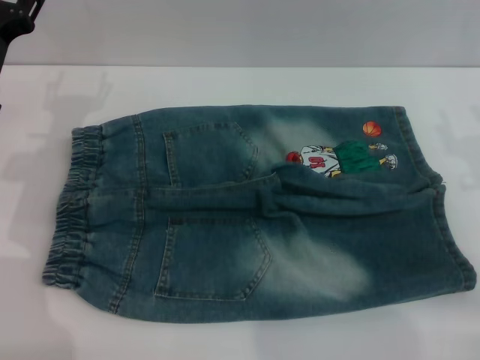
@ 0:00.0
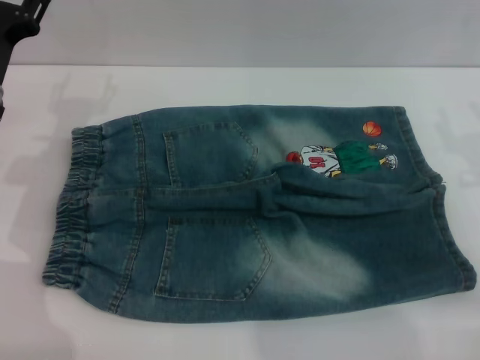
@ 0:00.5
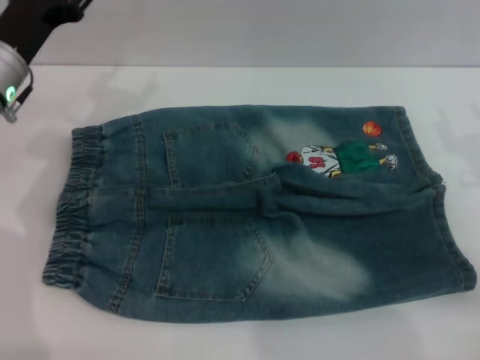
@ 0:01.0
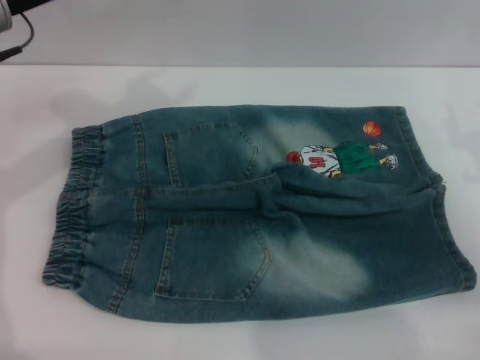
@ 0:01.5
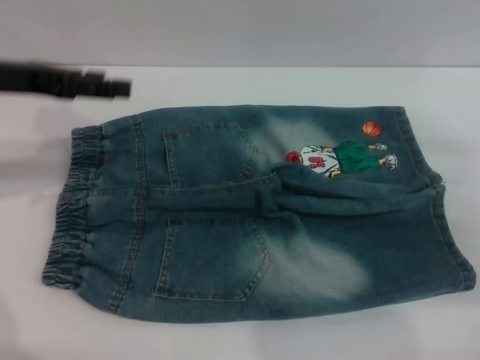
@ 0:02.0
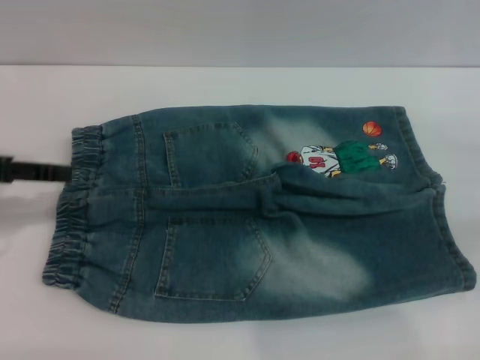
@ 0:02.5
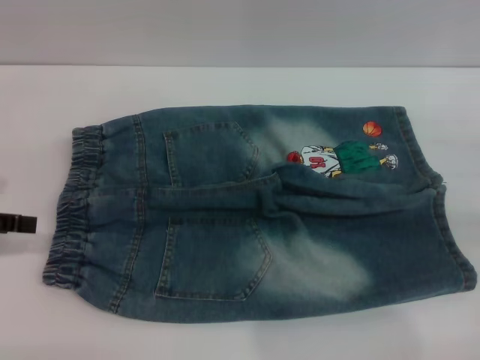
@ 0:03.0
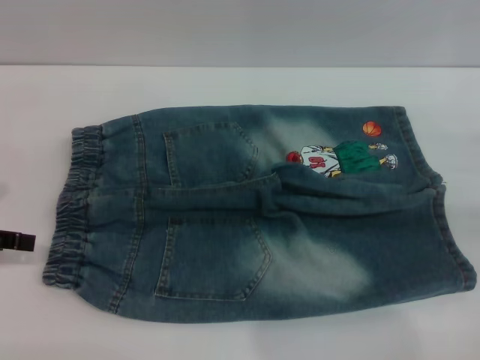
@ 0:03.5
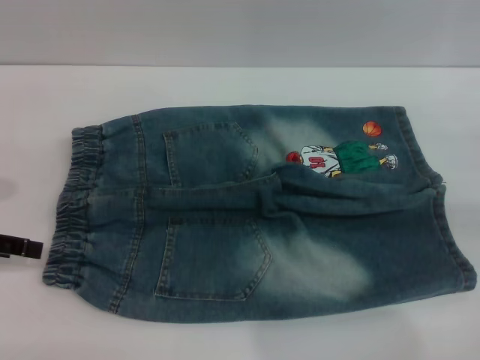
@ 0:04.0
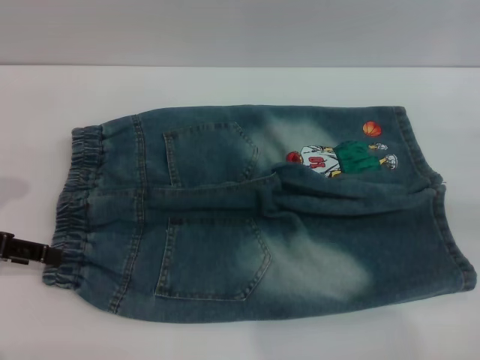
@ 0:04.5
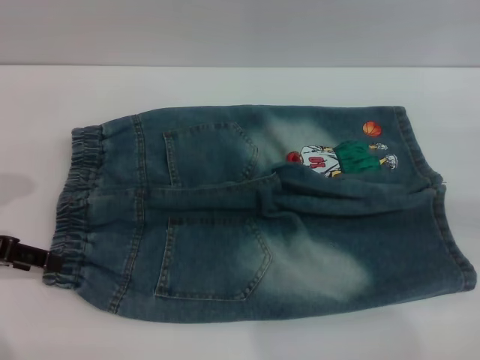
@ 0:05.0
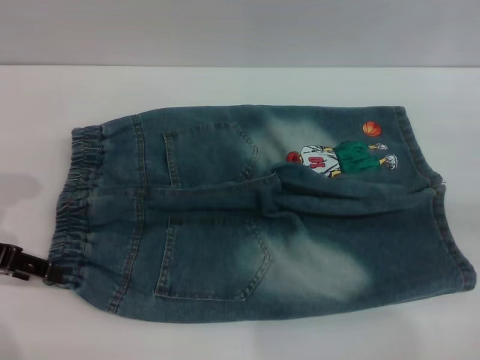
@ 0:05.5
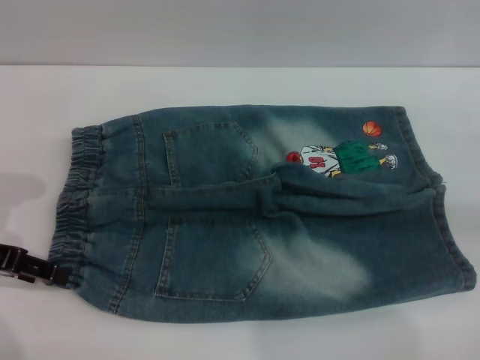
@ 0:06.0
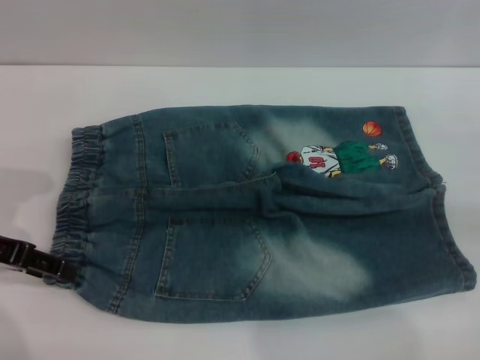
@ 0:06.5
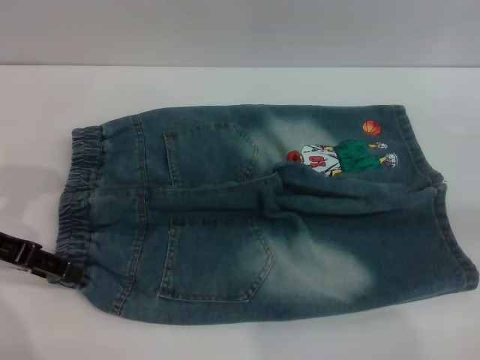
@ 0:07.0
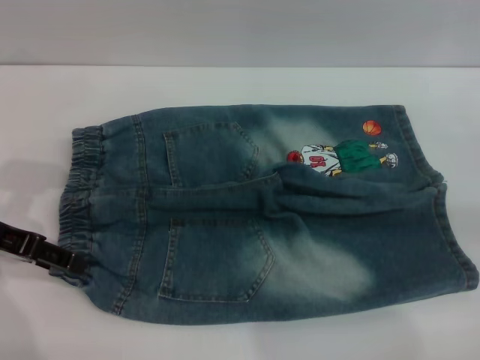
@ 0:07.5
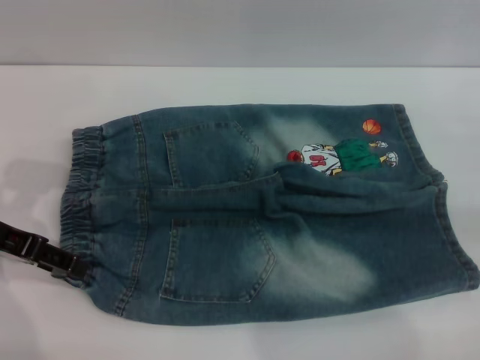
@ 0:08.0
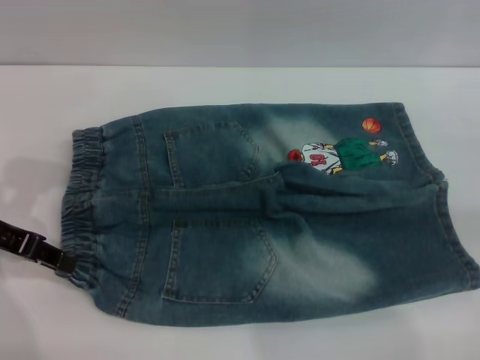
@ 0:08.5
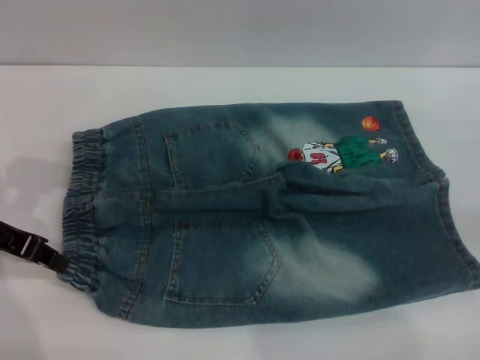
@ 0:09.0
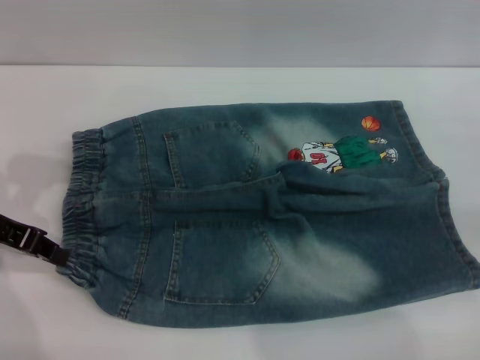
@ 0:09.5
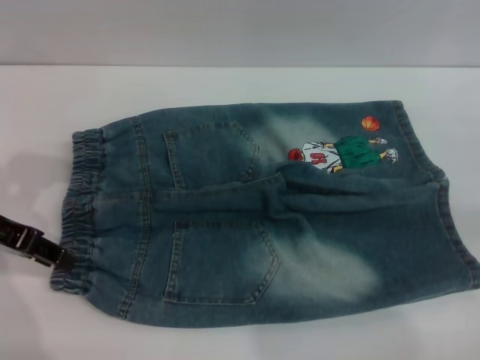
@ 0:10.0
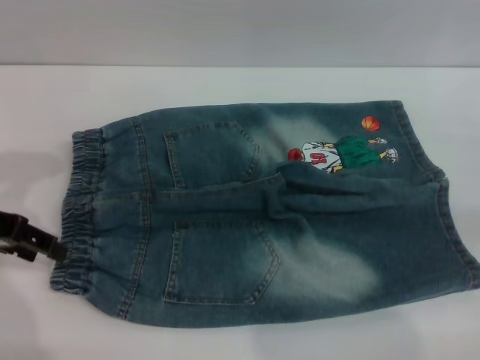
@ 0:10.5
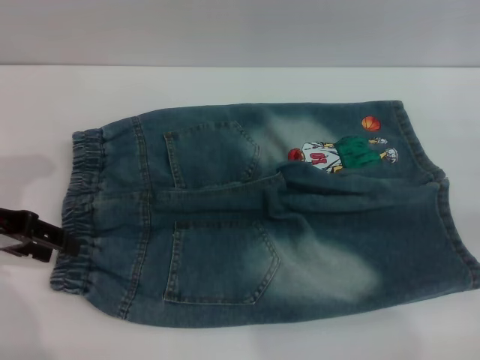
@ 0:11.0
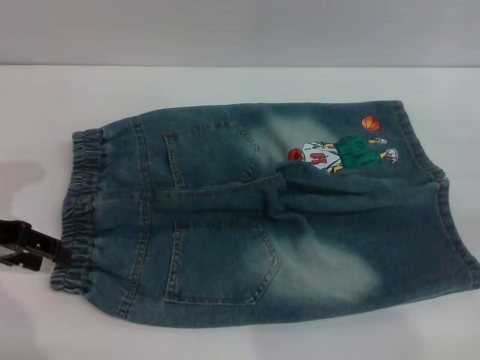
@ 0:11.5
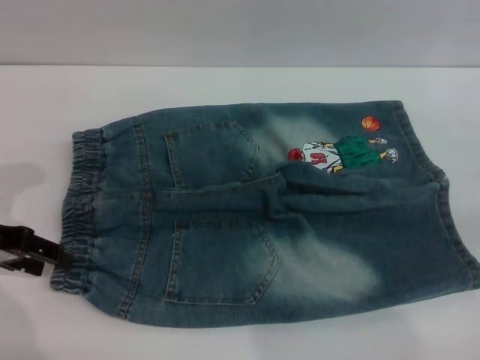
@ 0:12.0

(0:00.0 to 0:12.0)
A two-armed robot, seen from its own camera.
0:00.0 - 0:02.0: The left gripper travels upward by some 10 cm.
0:02.0 - 0:04.0: The left gripper is displaced backward, to the left and downward by approximately 15 cm.
0:04.0 - 0:06.0: There are only small adjustments of the grippers.
0:06.0 - 0:08.0: The grippers stay close to where they were, moving slightly.
0:08.0 - 0:10.0: The left gripper closes up.
0:10.0 - 0:12.0: The left gripper opens up.

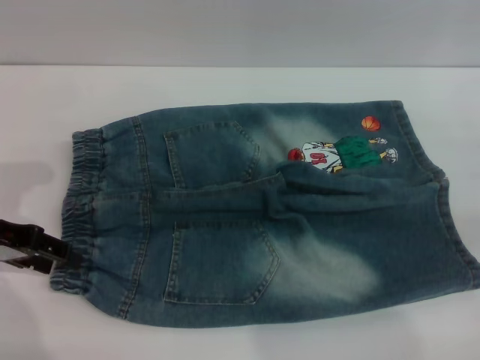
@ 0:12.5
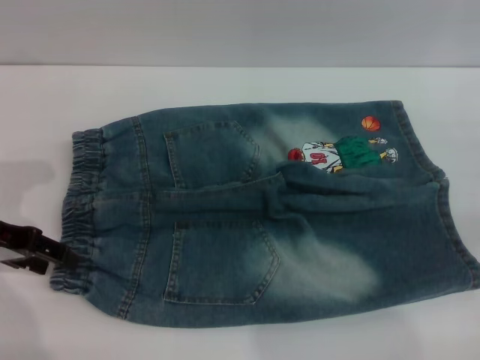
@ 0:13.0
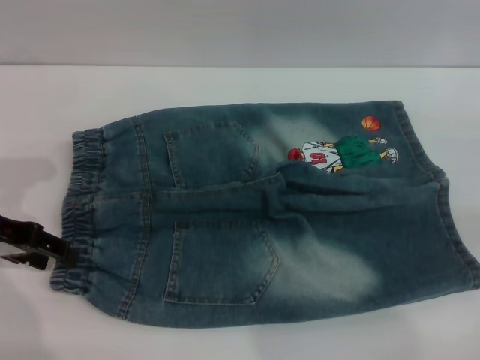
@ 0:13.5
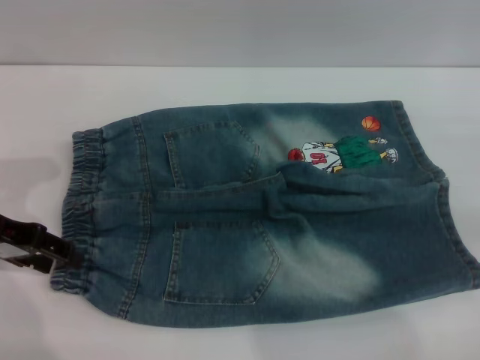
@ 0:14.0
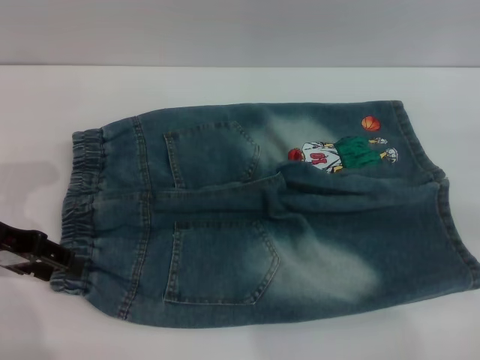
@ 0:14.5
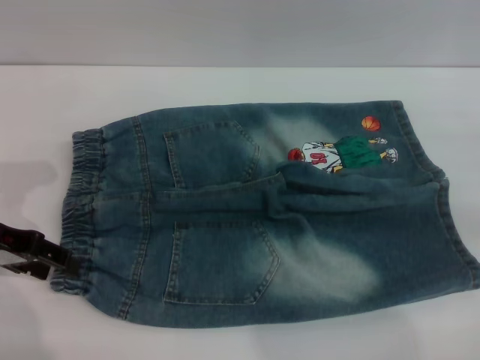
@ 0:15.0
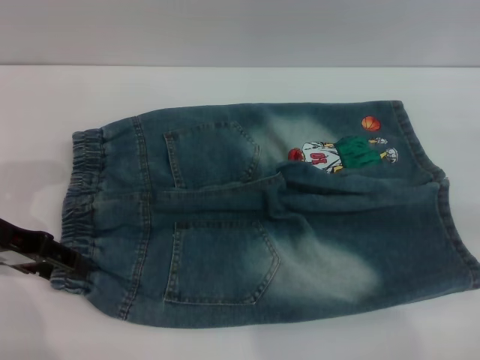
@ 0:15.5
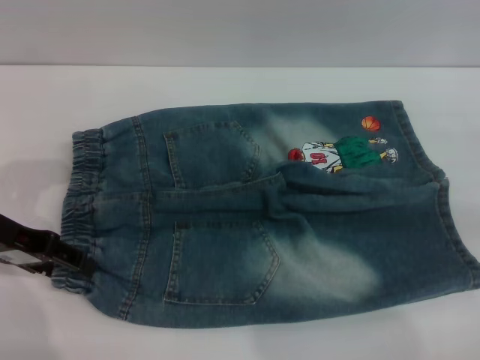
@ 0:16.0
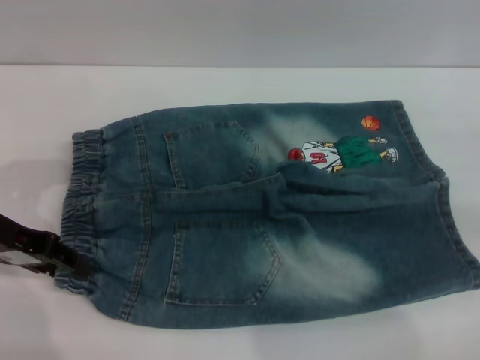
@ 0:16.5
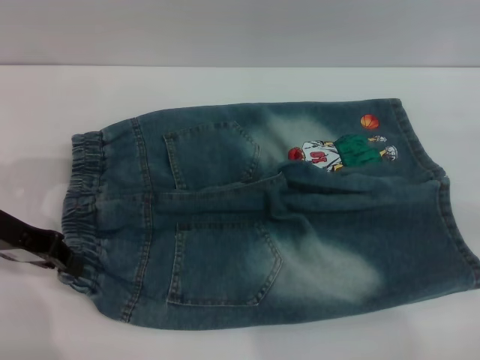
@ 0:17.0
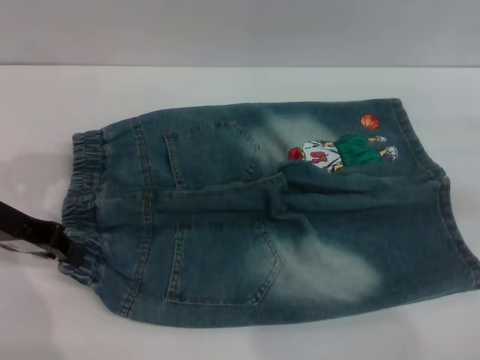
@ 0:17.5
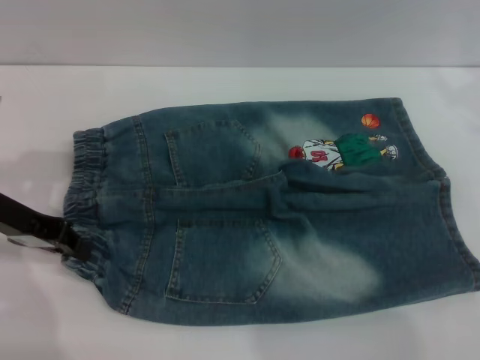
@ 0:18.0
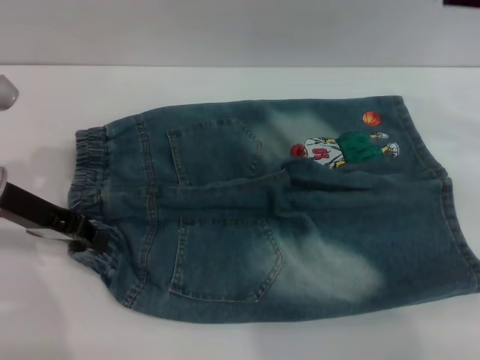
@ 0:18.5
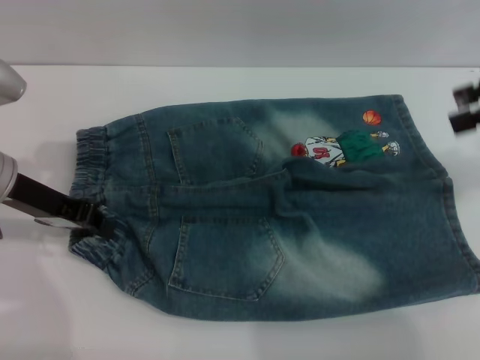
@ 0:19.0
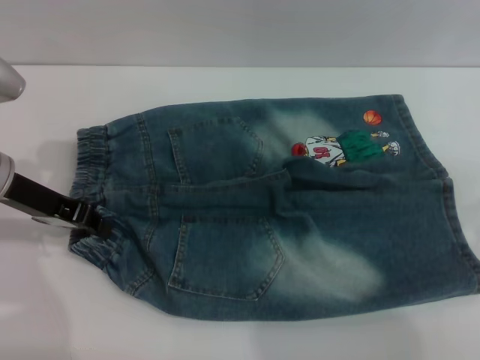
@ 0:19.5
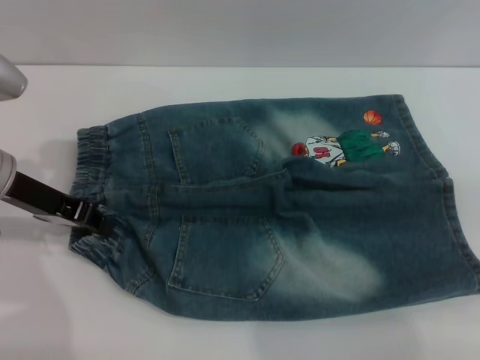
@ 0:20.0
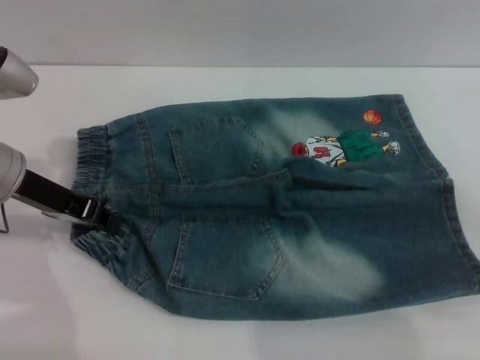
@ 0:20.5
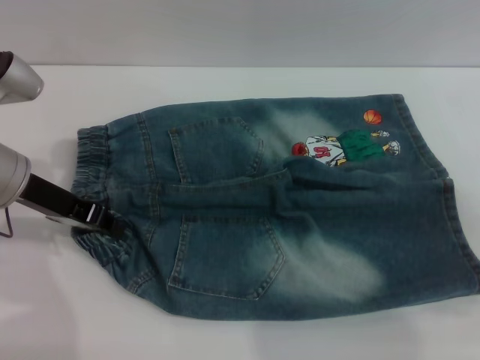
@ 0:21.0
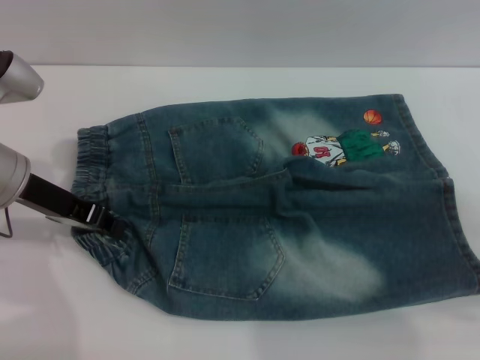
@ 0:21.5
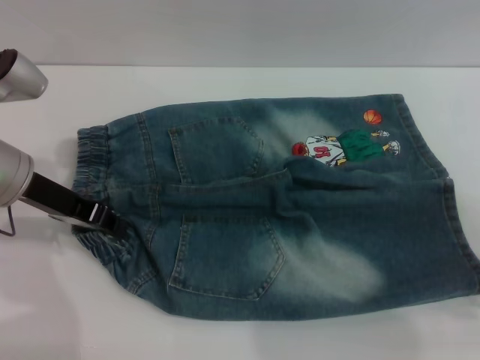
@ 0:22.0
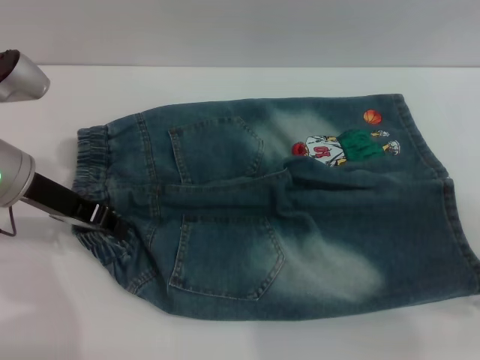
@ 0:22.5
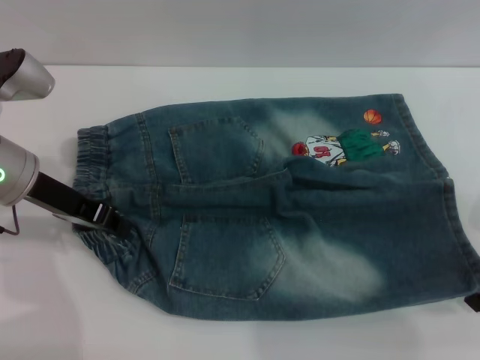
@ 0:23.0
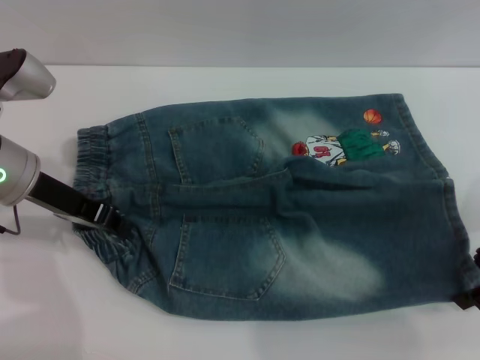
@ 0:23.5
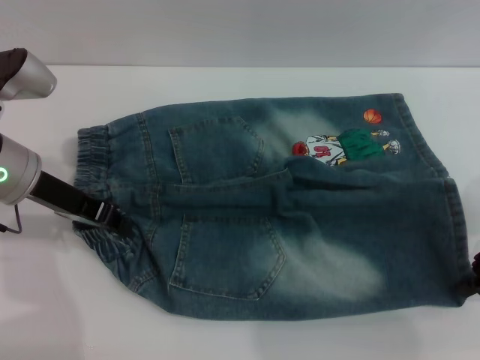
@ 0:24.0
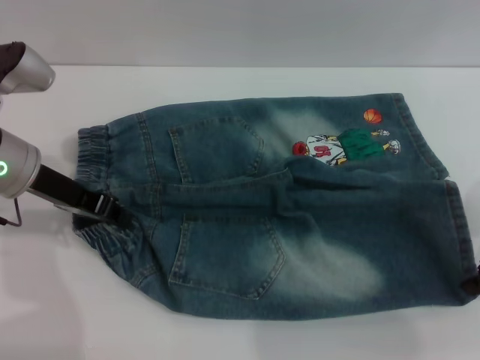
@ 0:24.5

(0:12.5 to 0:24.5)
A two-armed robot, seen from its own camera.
0:12.5 - 0:14.5: The grippers move only a little.
0:14.5 - 0:16.5: The two grippers keep their place.
0:16.5 - 0:18.5: The right gripper shifts some 15 cm upward, to the left and forward. Meanwhile the left gripper closes up.
0:18.5 - 0:20.5: The right gripper is displaced downward, backward and to the right by about 15 cm.
0:20.5 - 0:22.5: There are only small adjustments of the grippers.
0:22.5 - 0:24.5: The right gripper closes.

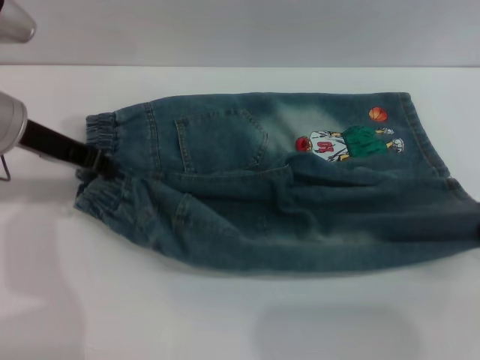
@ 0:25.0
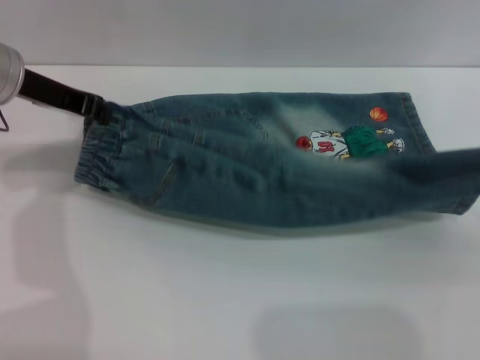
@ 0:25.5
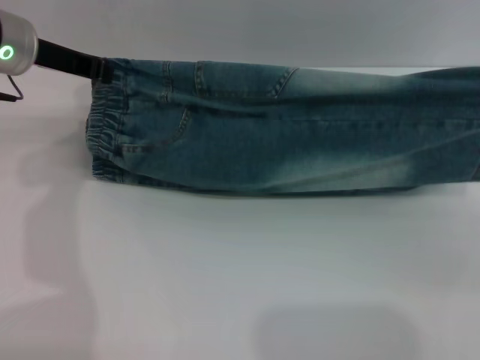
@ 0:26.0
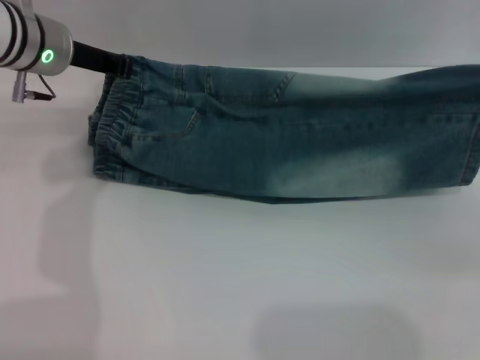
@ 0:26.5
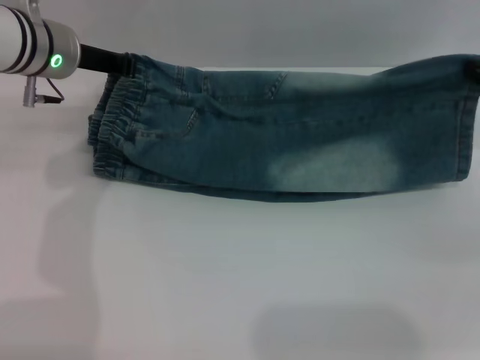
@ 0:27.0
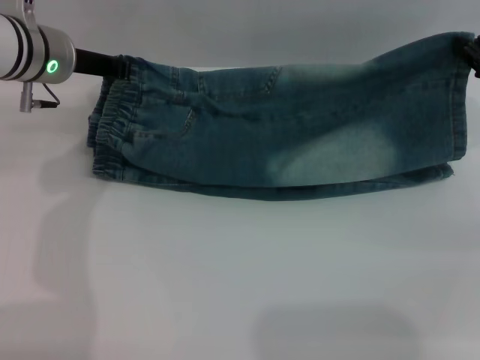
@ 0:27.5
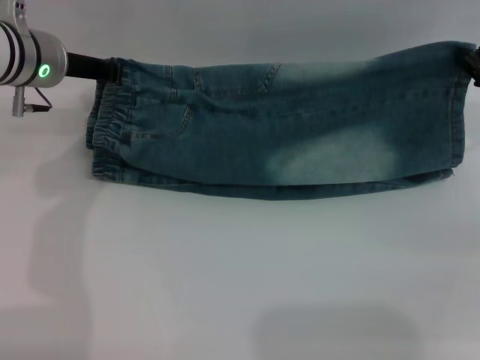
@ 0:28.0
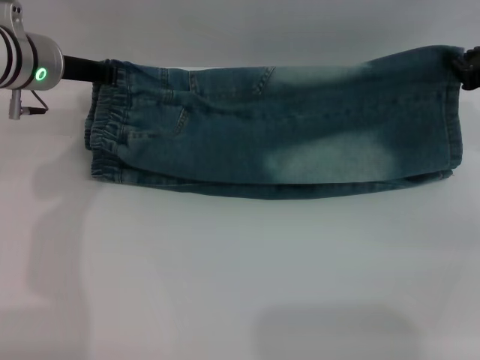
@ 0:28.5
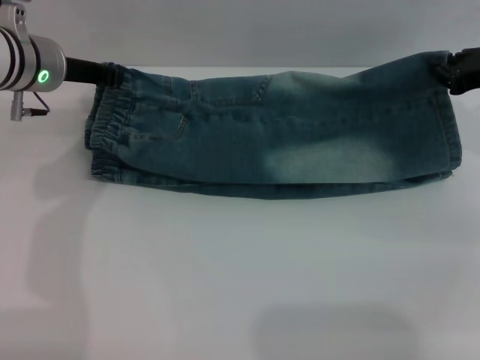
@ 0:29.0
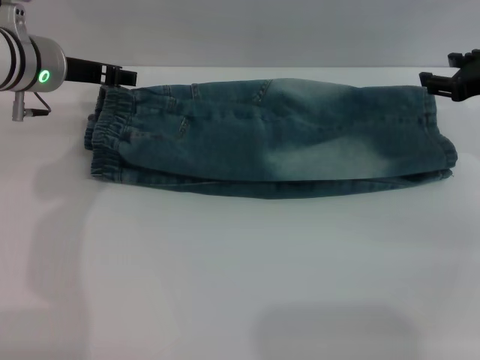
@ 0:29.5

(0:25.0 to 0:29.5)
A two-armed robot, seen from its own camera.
0:25.0 - 0:27.0: The grippers both shift forward by approximately 10 cm.
0:27.0 - 0:29.5: The right gripper changes place by approximately 5 cm, and opens its fingers; the left gripper opens up.
